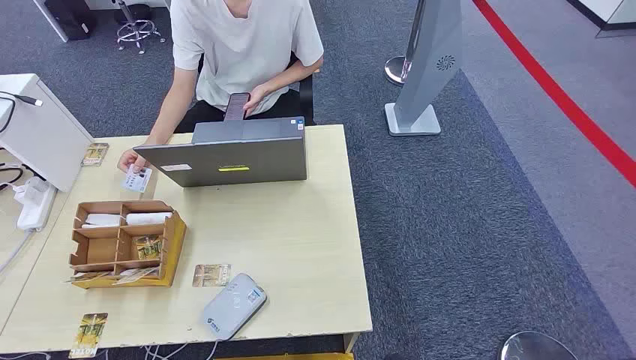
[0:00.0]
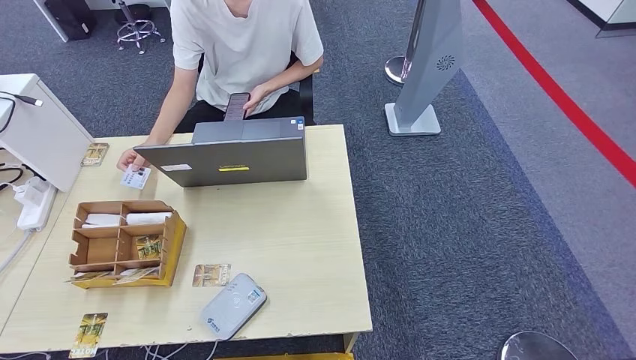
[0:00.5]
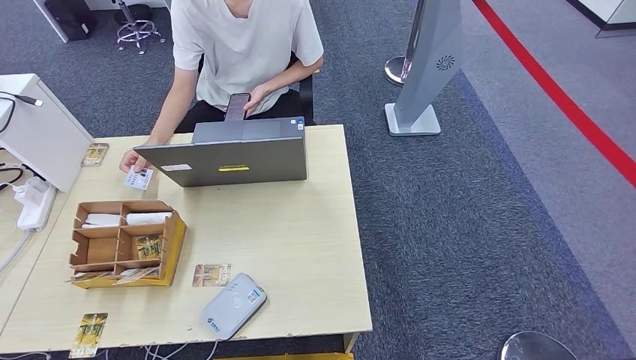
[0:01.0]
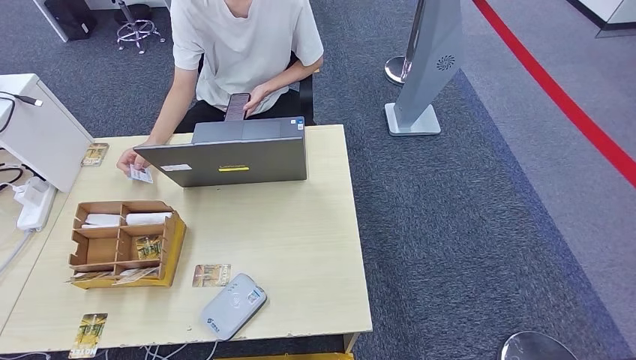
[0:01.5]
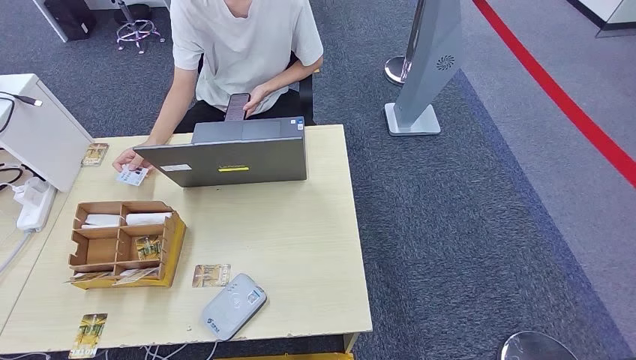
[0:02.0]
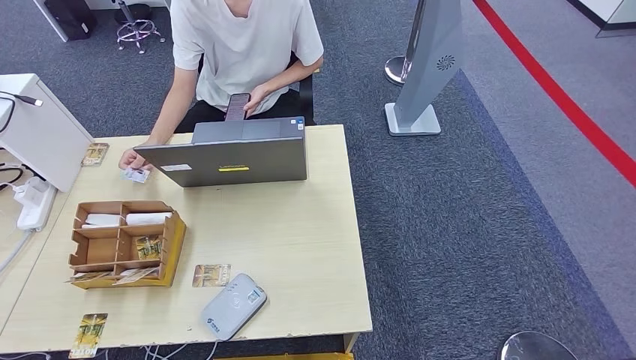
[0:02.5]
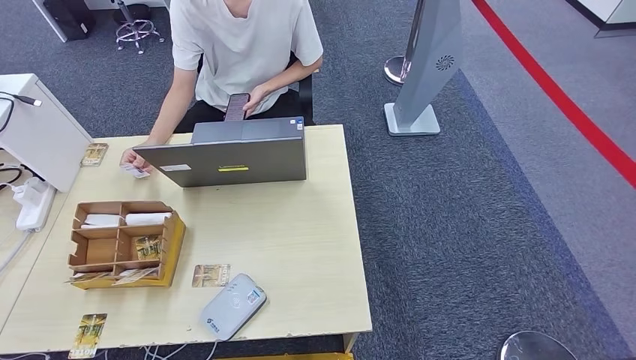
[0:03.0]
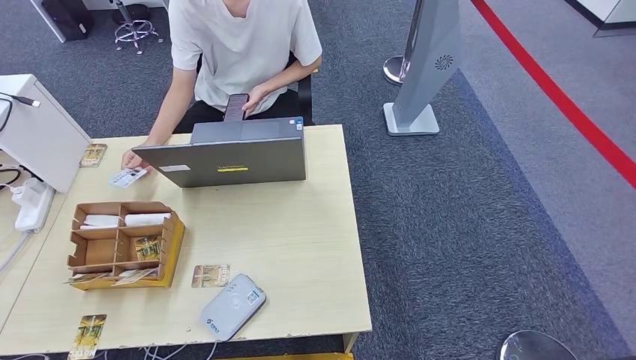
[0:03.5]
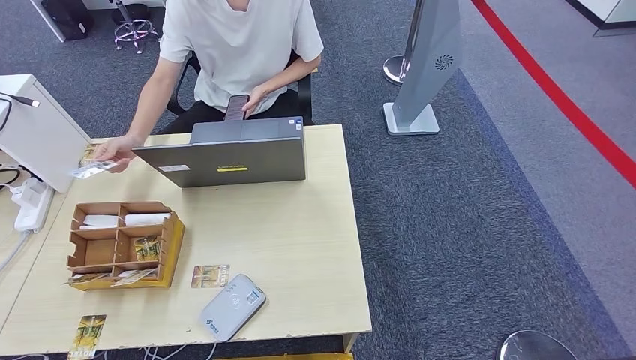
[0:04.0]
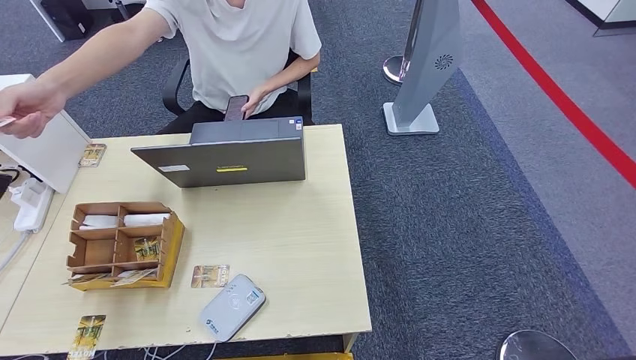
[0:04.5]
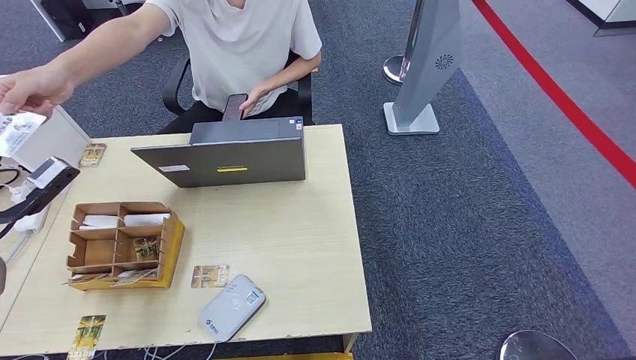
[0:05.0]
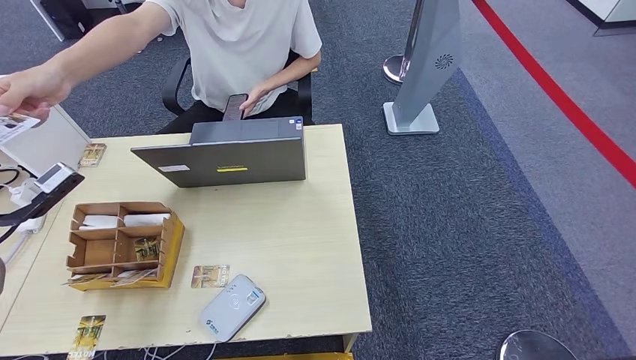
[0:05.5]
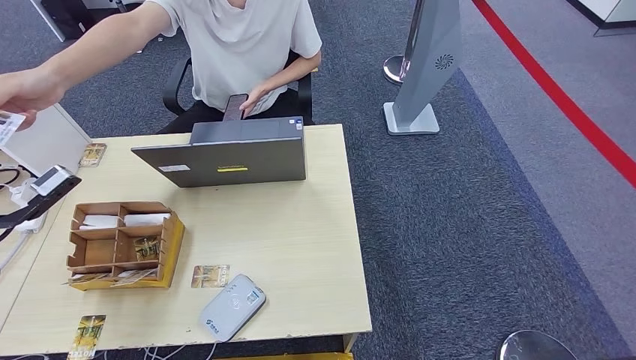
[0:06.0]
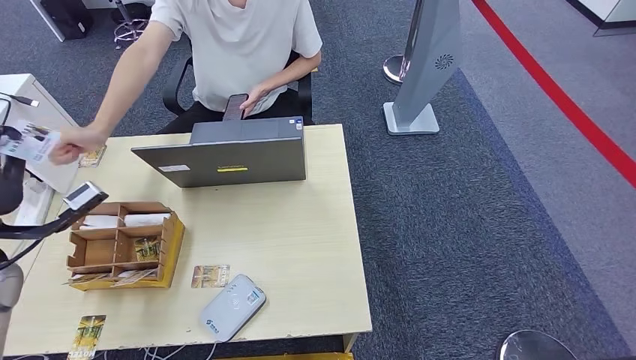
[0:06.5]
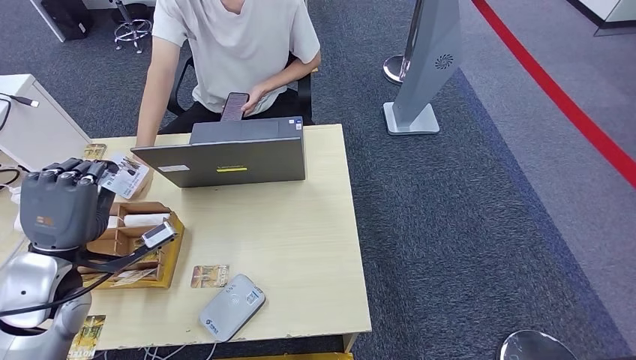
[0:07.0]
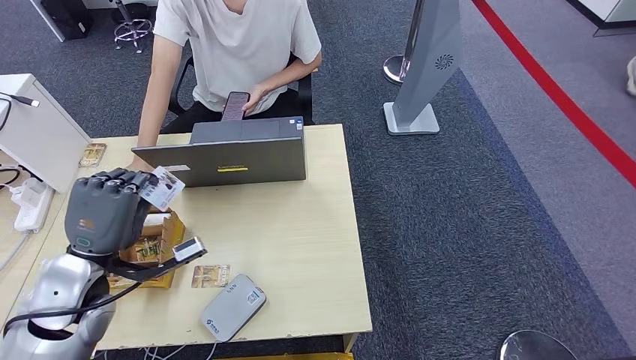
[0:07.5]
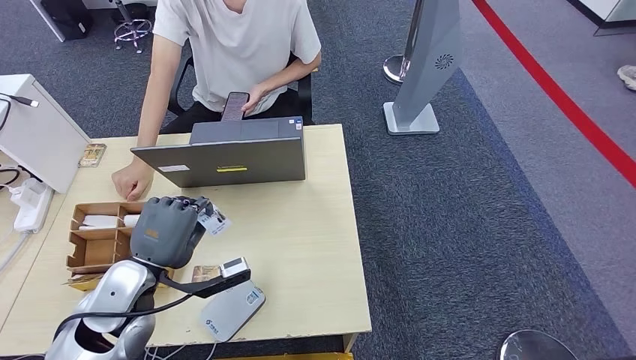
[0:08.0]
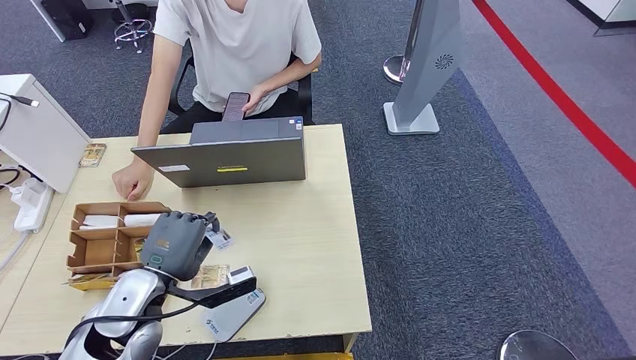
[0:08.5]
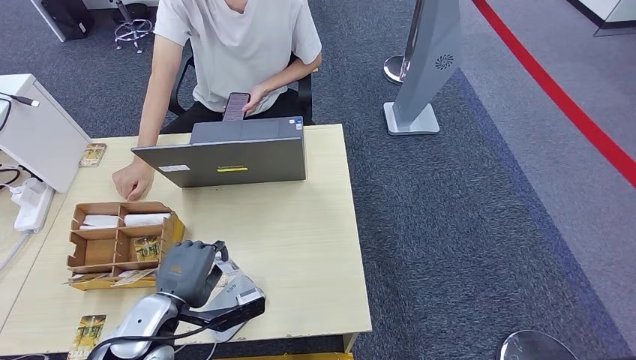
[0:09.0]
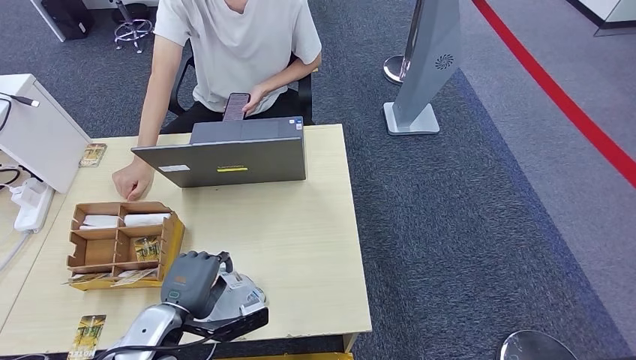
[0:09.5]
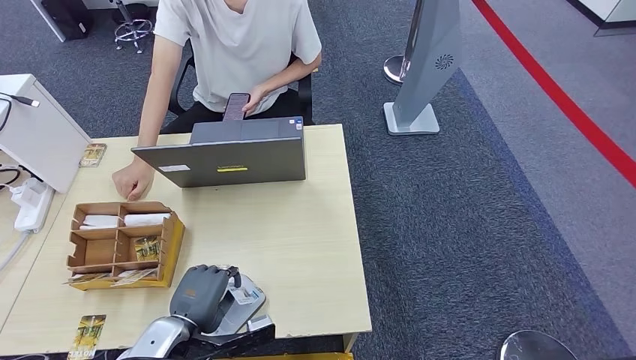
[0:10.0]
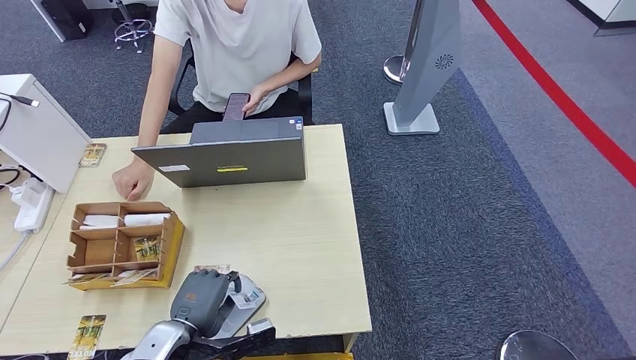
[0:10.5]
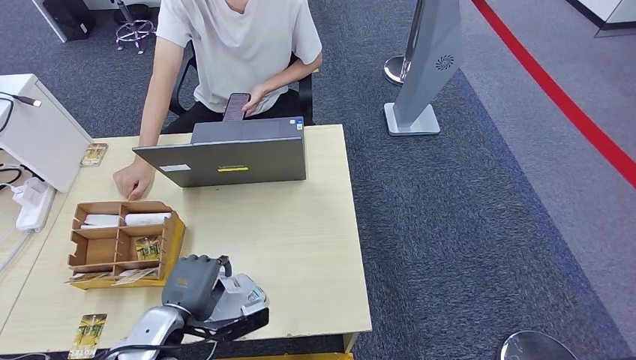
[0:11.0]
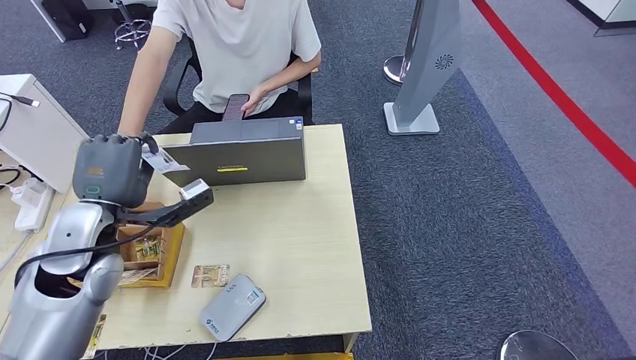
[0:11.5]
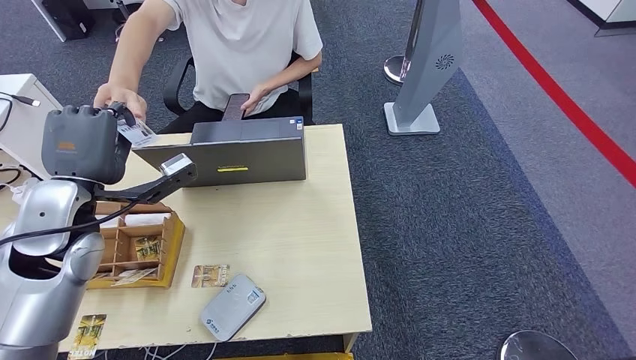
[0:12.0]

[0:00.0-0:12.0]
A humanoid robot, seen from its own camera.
Step, 0:00.0 to 0:05.5: Take the ID card from the person's hand.
Step, 0:06.0 to 0:09.5: Place the ID card on the card reader.
0:02.0 to 0:04.0: The left hand heads upward and forward, covering some 35 cm.
0:04.0 to 0:06.0: The left hand shifts about 10 cm forward and to the right.
0:06.0 to 0:08.0: The left hand travels to the right and downward by roughly 20 cm.
0:08.0 to 0:10.0: The left hand travels downward and backward by roughly 10 cm.
0:10.0 to 0:12.0: The left hand goes some 25 cm upward and forward.

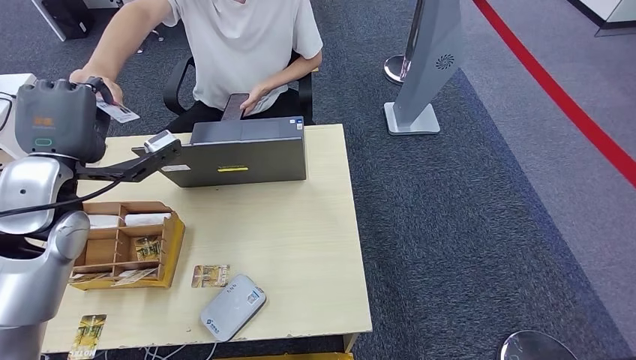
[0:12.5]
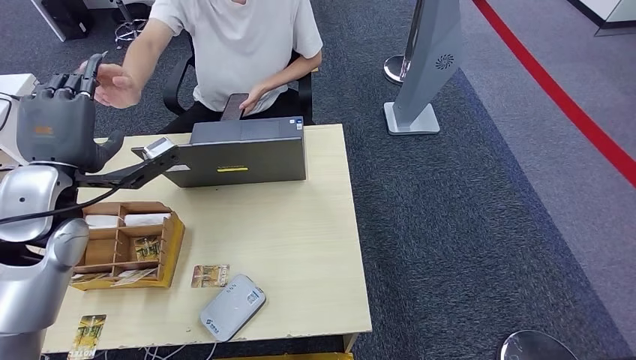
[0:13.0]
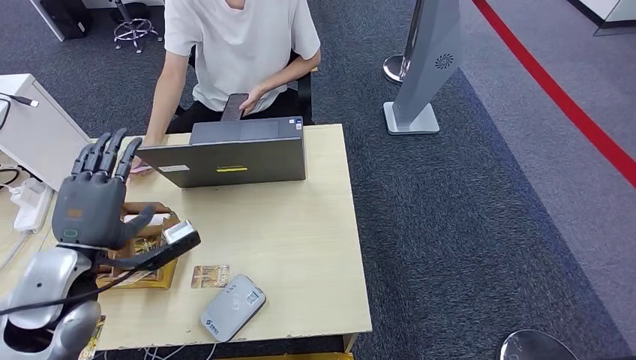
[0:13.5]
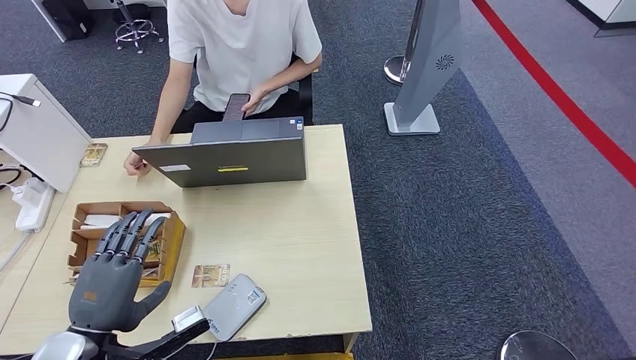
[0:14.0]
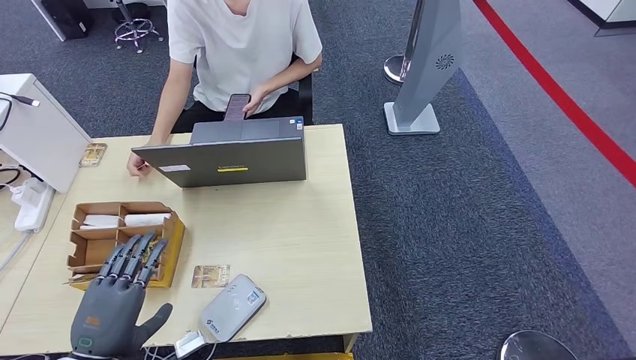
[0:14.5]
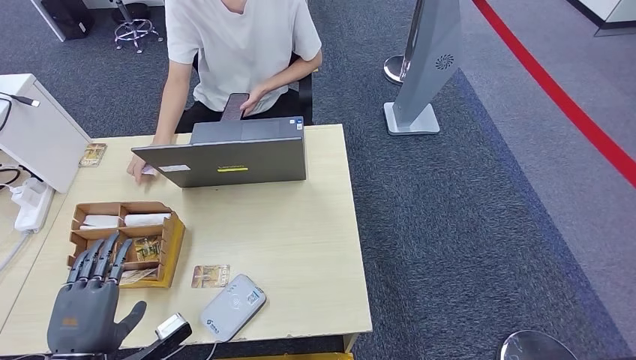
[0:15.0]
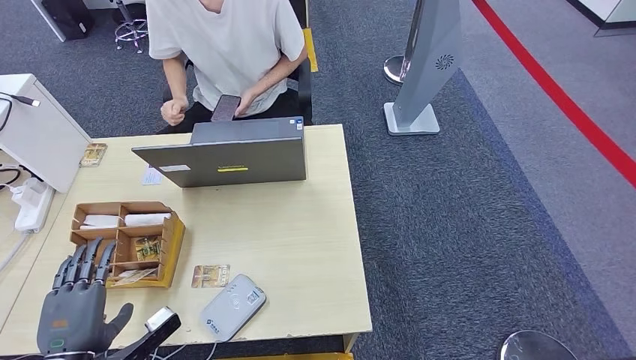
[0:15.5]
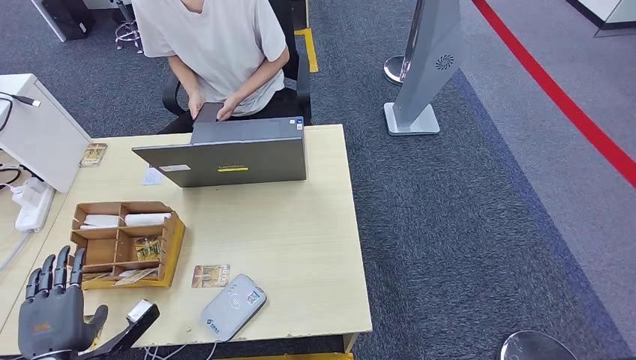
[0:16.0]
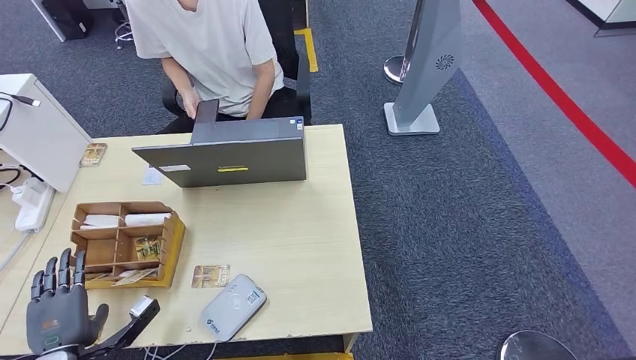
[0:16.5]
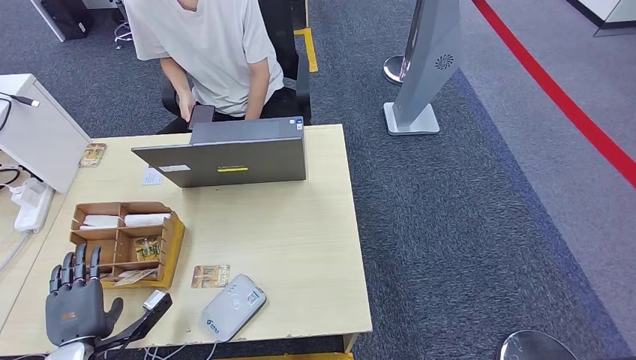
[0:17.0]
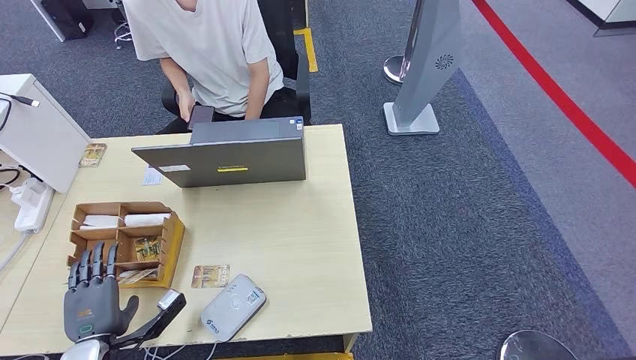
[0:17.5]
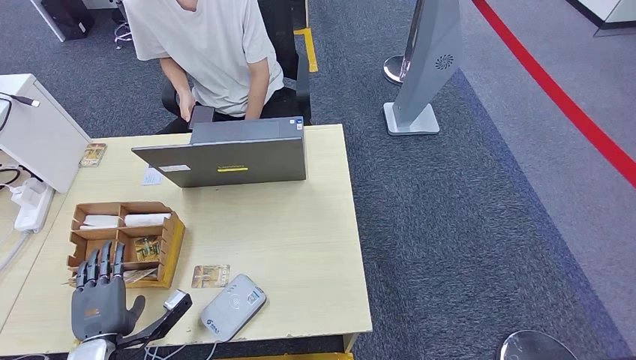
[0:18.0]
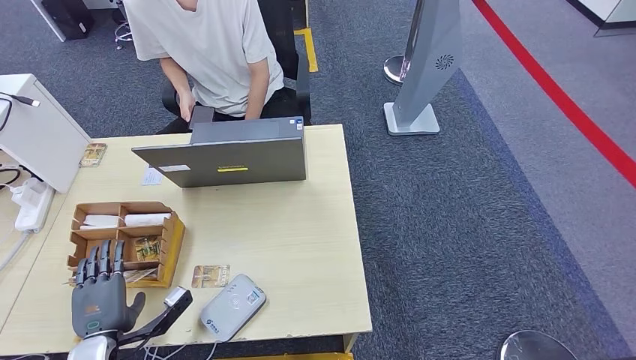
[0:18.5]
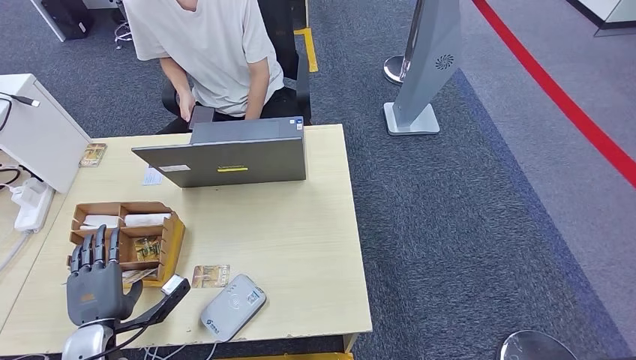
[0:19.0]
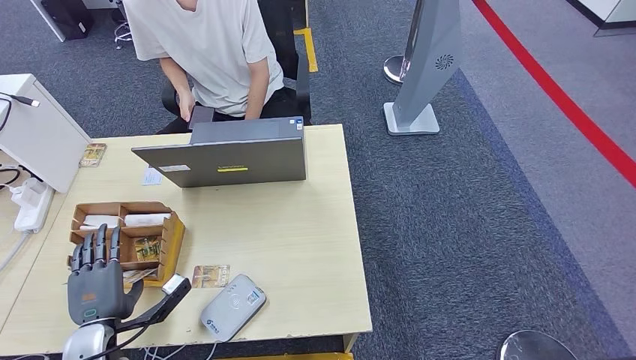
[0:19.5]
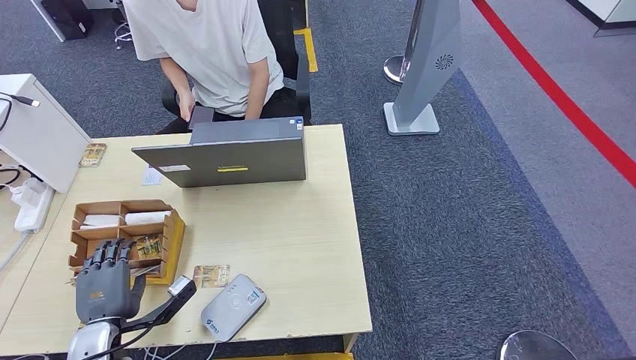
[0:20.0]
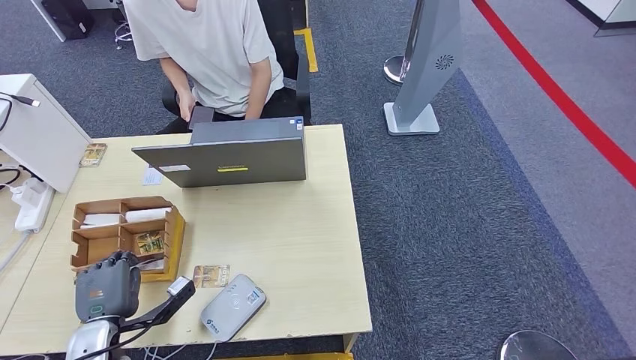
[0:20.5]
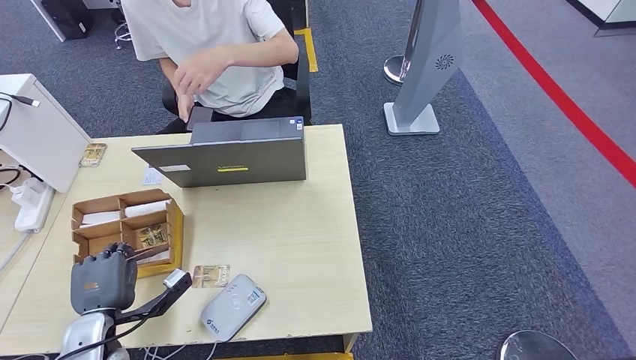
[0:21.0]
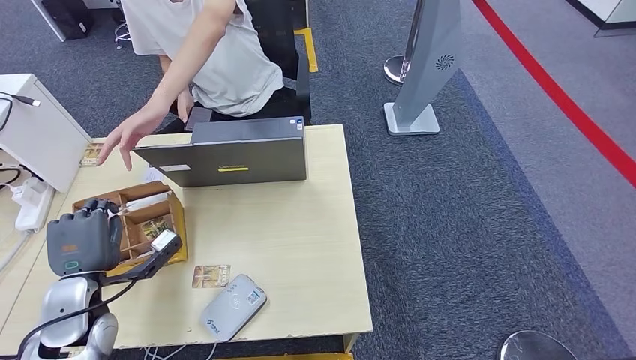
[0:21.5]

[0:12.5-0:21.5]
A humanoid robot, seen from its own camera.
0:12.5 to 0:14.5: The left hand shifts roughly 25 cm backward and downward.
0:14.5 to 0:17.0: The left hand moves downward and to the left, some 15 cm.
0:17.0 to 0:19.5: There are only small adjustments of the hands.
0:19.5 to 0:21.5: The left hand heads upward and forward, covering some 10 cm.
